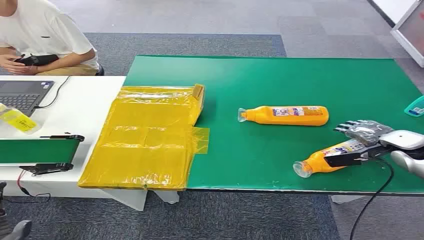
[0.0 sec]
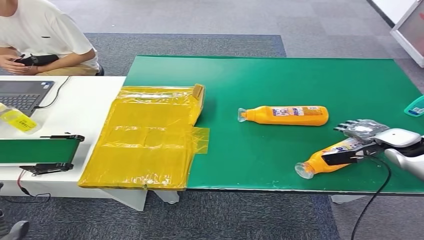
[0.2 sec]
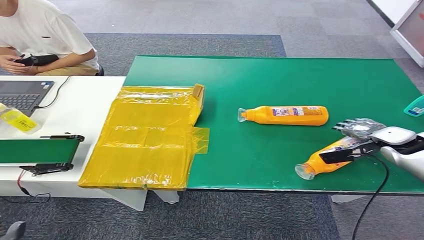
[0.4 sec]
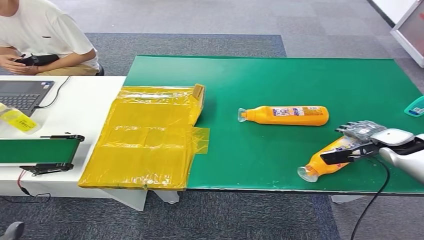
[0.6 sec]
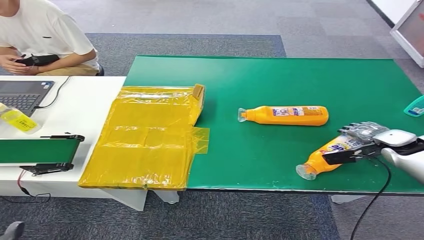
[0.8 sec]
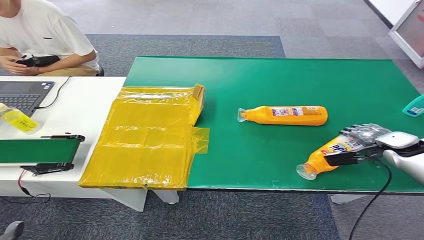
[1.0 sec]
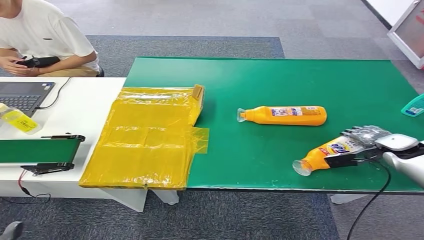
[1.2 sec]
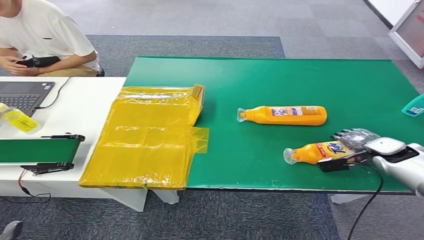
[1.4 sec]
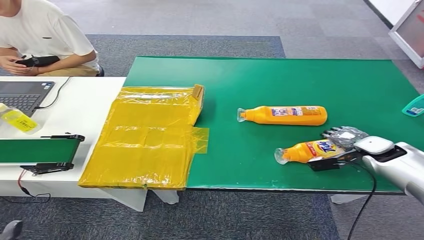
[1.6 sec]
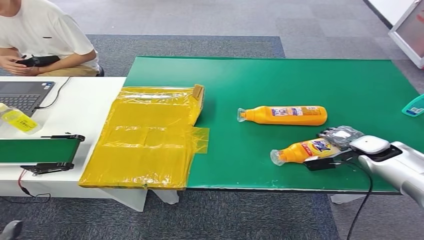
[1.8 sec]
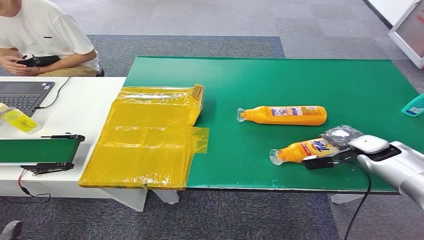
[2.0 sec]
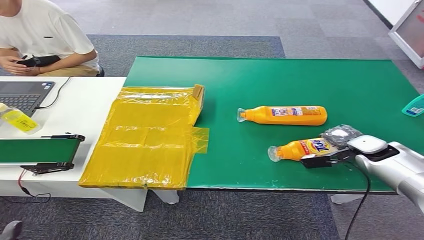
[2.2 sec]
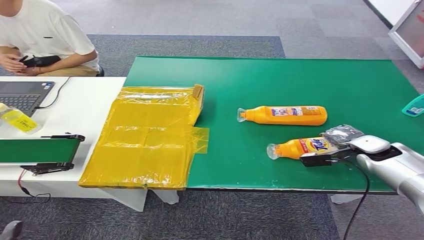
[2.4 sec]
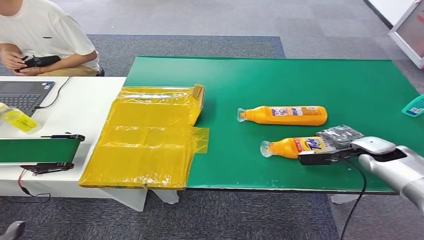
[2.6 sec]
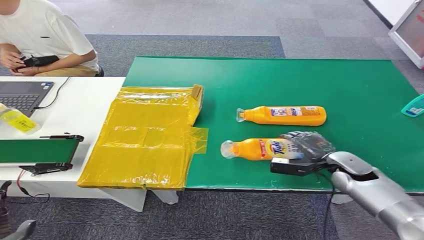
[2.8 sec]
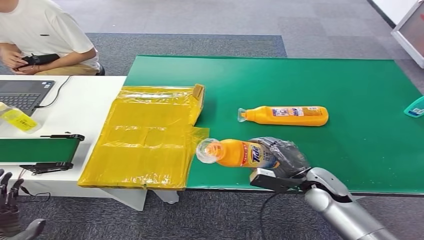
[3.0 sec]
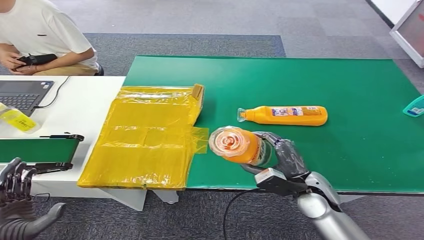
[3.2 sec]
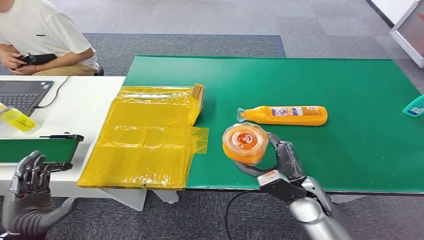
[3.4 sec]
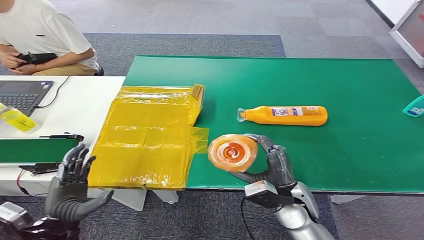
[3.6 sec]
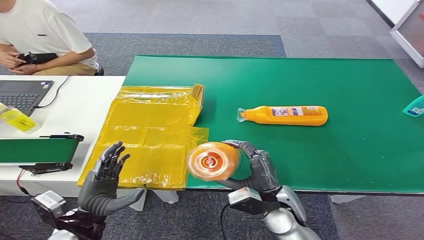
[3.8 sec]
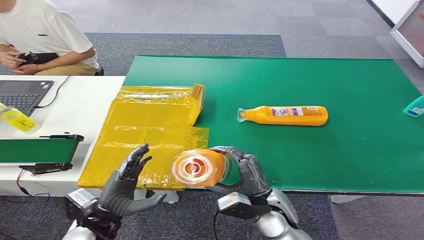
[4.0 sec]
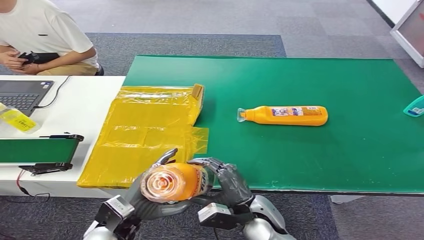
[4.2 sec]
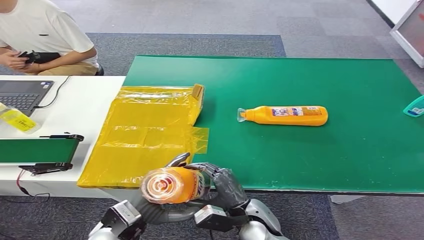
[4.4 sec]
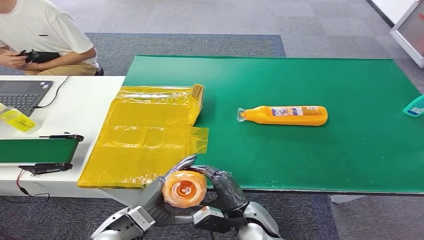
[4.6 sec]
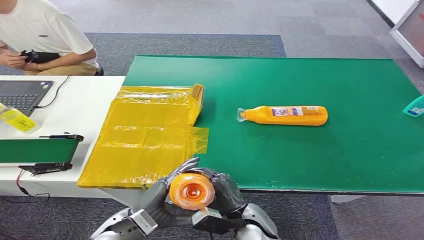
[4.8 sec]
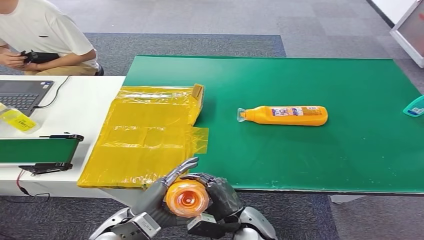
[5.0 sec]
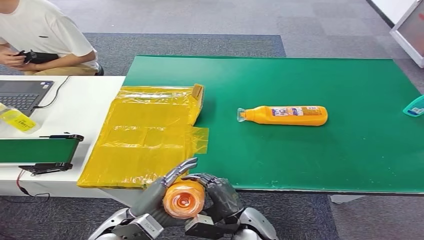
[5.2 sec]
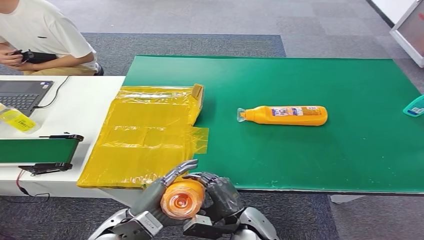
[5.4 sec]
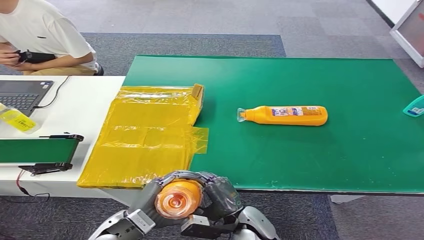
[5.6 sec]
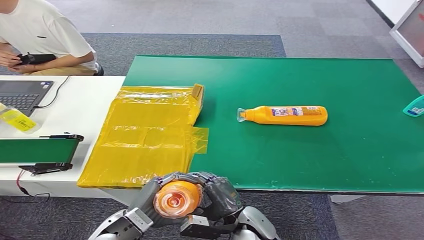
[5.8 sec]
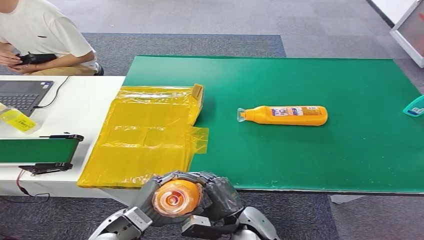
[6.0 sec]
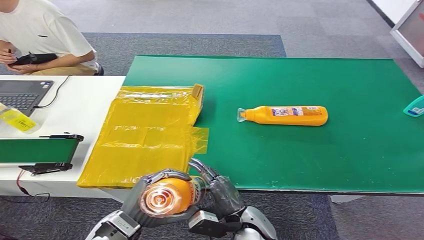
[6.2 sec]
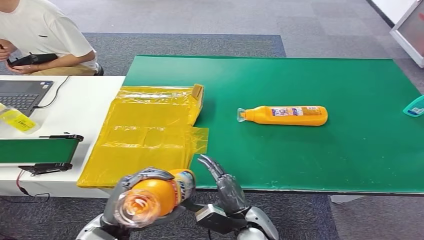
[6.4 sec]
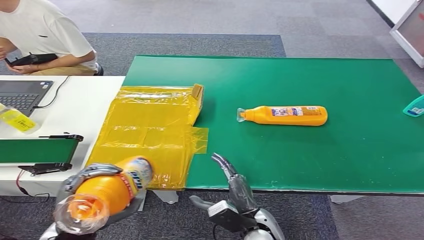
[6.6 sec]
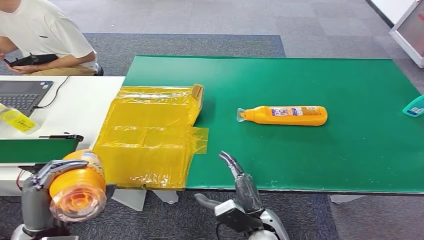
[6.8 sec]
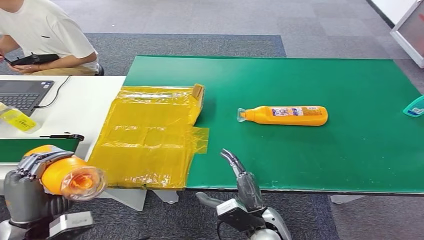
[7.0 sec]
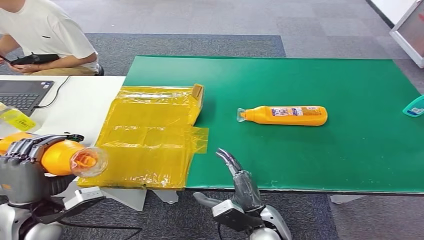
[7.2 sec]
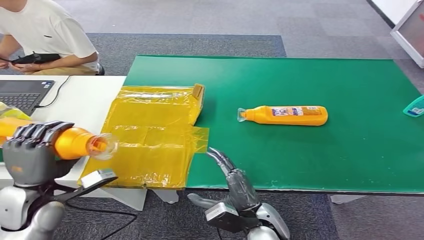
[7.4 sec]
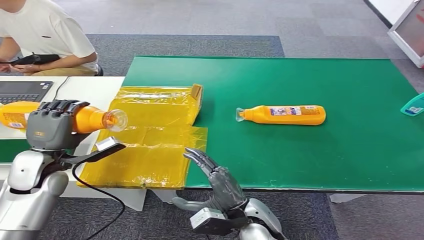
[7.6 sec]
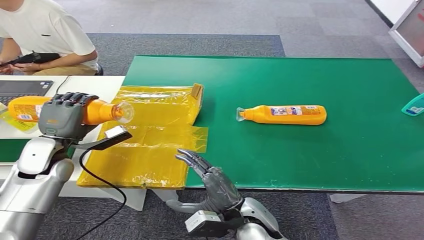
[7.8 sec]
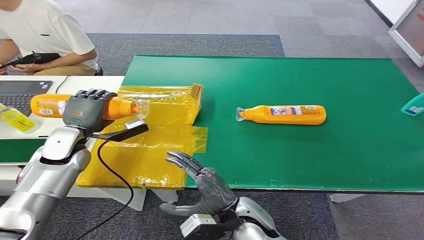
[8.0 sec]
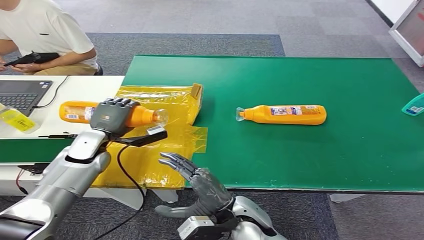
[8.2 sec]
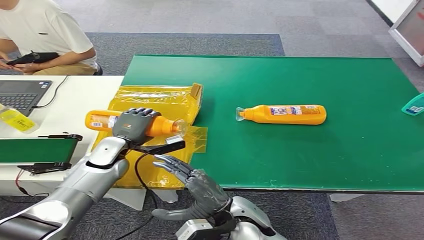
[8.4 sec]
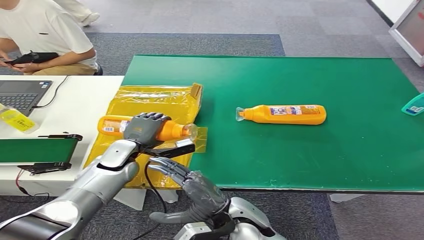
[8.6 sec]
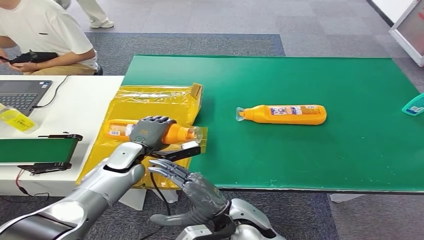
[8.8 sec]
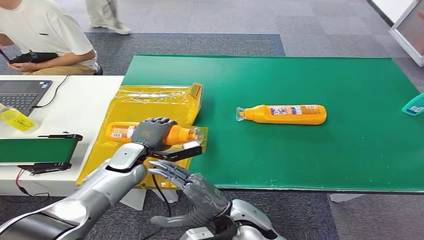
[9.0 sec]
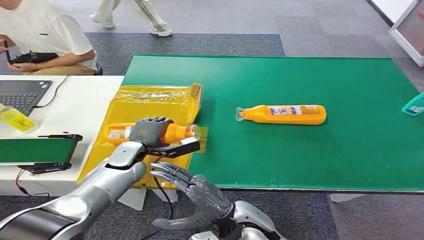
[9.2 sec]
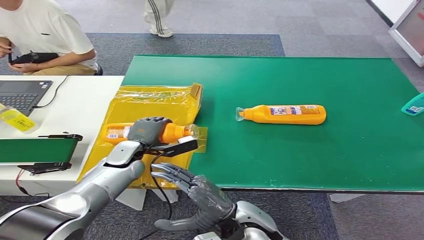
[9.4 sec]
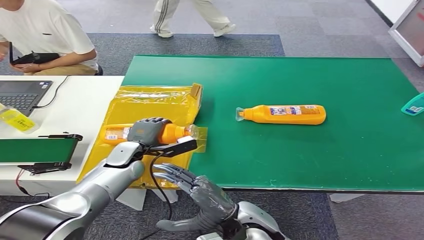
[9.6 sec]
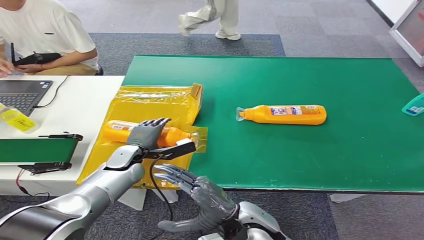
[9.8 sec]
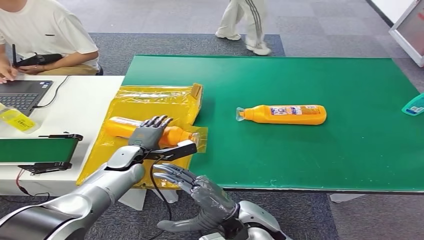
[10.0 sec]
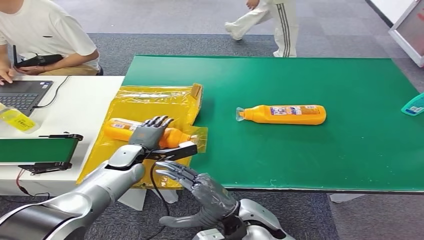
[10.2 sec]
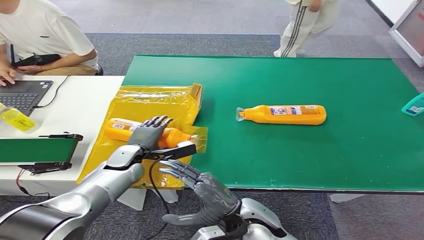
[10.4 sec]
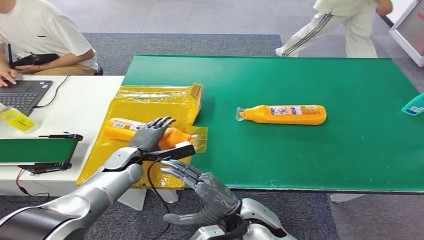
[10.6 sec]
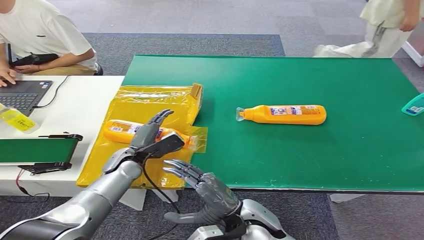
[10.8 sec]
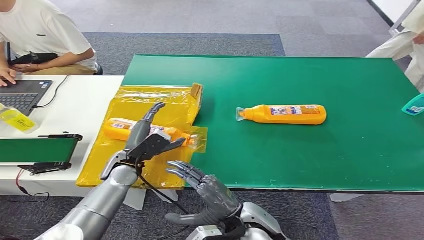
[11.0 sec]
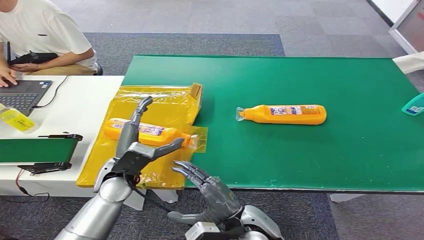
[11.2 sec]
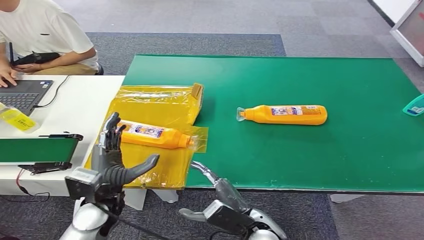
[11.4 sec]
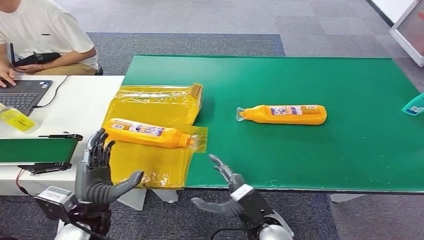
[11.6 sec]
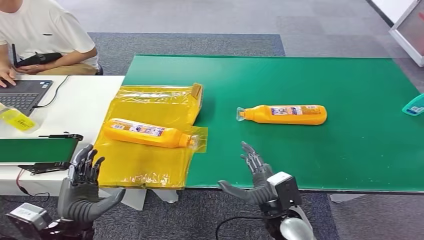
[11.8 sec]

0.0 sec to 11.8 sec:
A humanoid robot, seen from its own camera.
Step, 0.0 sec to 3.6 sec: Pick up the bottle from the table.
Step, 4.4 sec to 11.6 sec: Turn the bottle to the front side.
1.4 sec to 3.0 sec: The right hand moves to the left and backward, about 20 cm.
3.0 sec to 4.4 sec: The left hand heads to the right and forward, covering approximately 20 cm, while the right hand moves to the left and backward, approximately 20 cm.
4.4 sec to 6.0 sec: There are only small adjustments of the hands.
6.0 sec to 7.4 sec: The left hand travels to the left and upward by roughly 15 cm.
8.8 sec to 10.4 sec: The hands move only a little.
10.4 sec to 11.8 sec: The left hand is displaced backward by some 20 cm, while the right hand travels to the right by approximately 5 cm.
